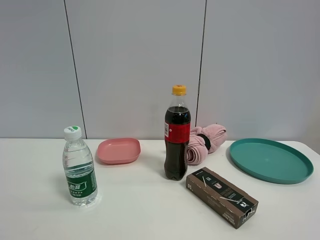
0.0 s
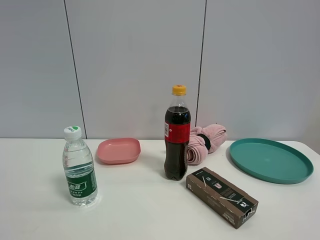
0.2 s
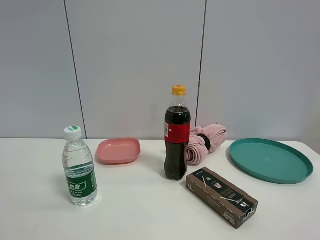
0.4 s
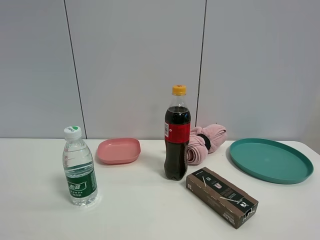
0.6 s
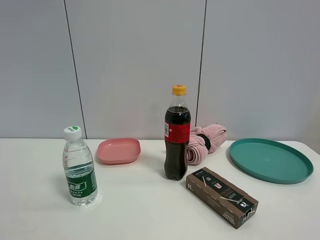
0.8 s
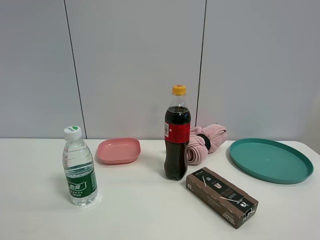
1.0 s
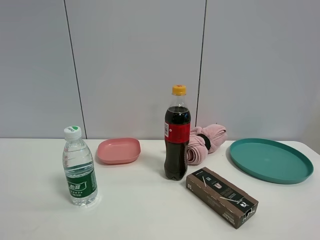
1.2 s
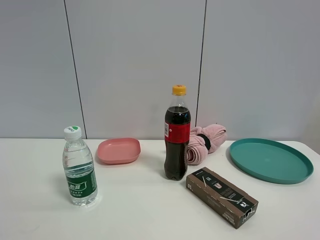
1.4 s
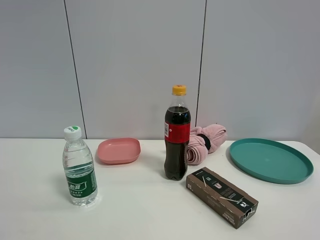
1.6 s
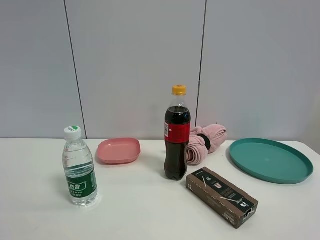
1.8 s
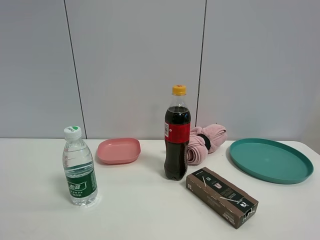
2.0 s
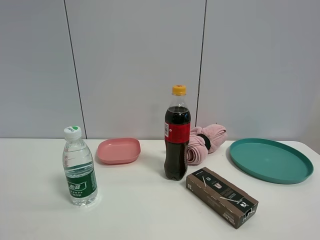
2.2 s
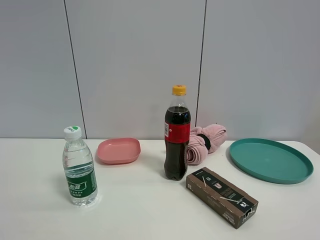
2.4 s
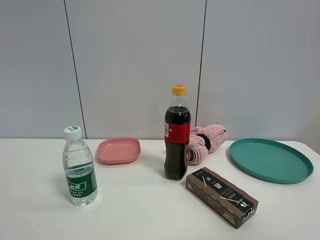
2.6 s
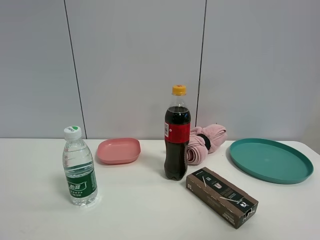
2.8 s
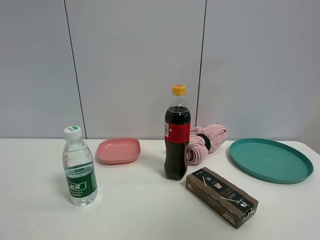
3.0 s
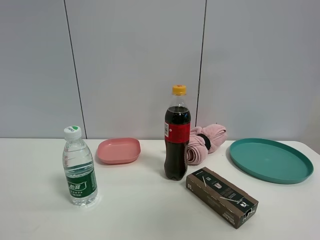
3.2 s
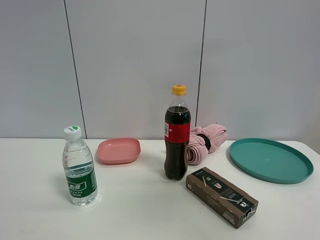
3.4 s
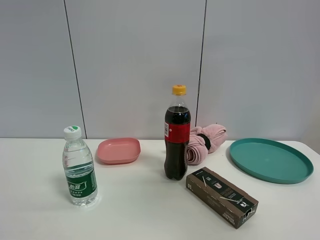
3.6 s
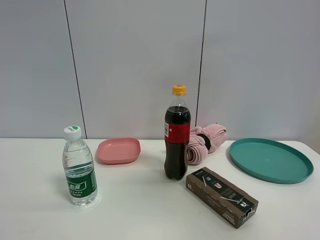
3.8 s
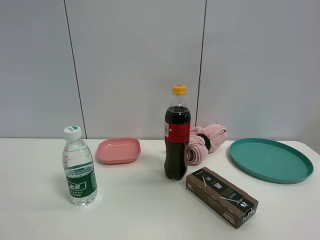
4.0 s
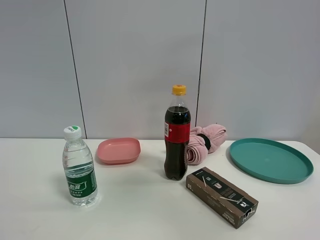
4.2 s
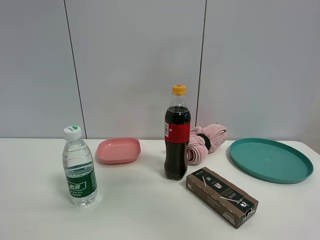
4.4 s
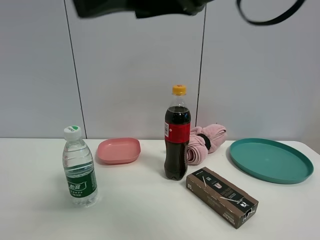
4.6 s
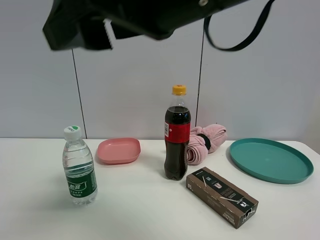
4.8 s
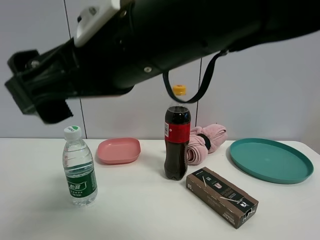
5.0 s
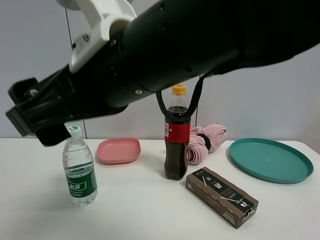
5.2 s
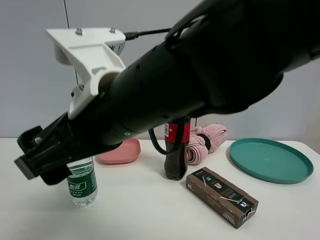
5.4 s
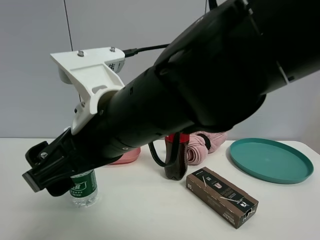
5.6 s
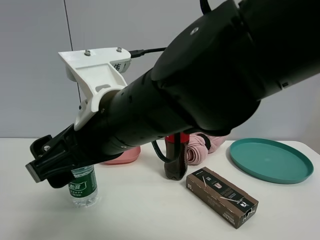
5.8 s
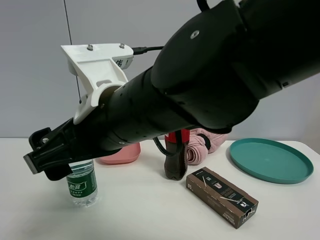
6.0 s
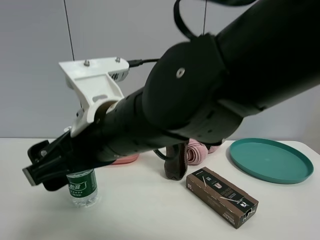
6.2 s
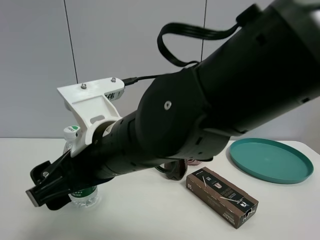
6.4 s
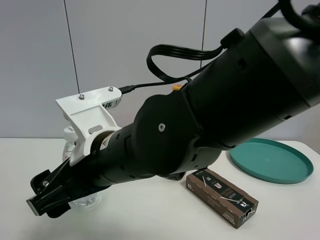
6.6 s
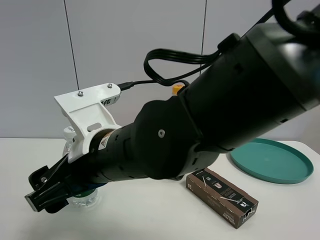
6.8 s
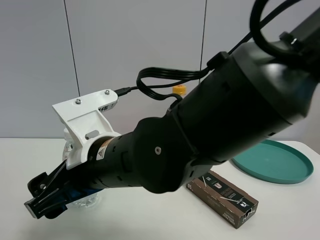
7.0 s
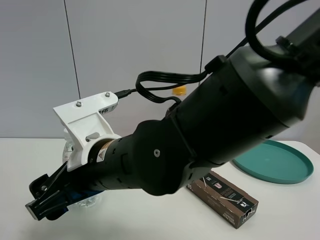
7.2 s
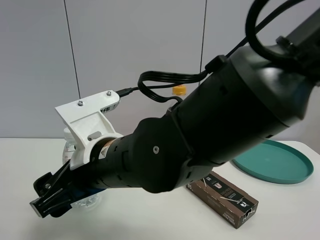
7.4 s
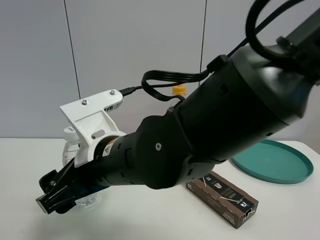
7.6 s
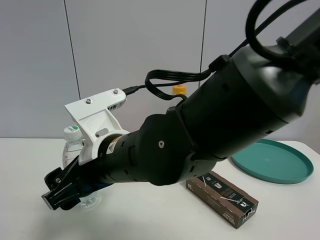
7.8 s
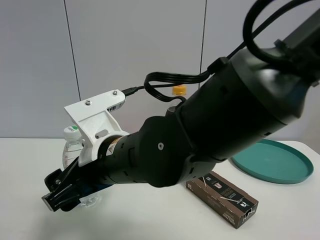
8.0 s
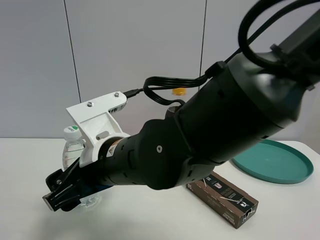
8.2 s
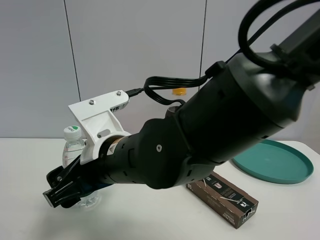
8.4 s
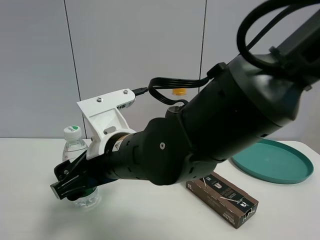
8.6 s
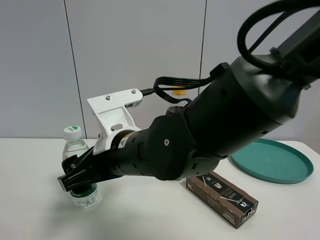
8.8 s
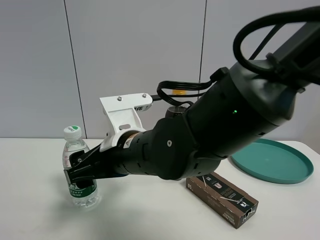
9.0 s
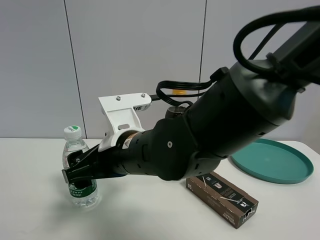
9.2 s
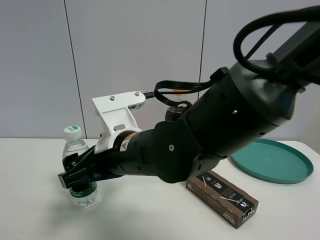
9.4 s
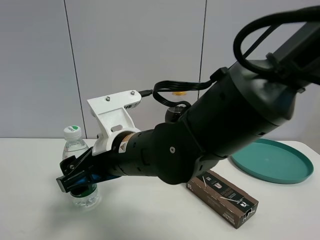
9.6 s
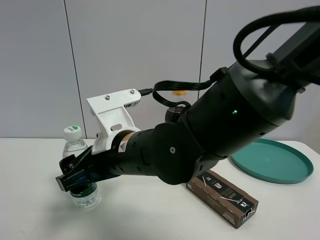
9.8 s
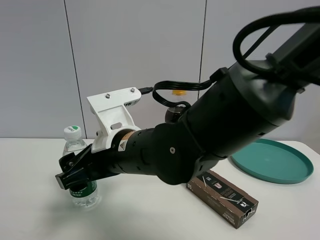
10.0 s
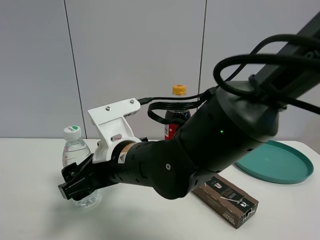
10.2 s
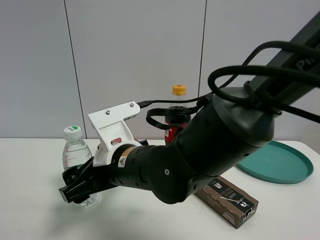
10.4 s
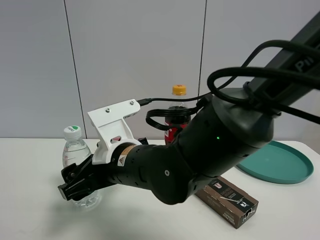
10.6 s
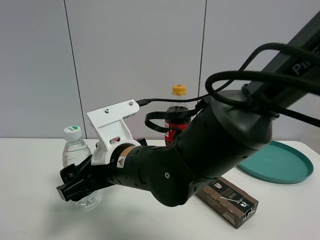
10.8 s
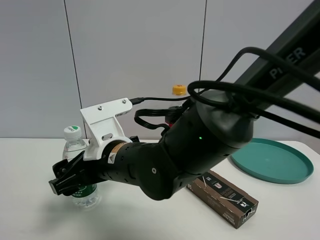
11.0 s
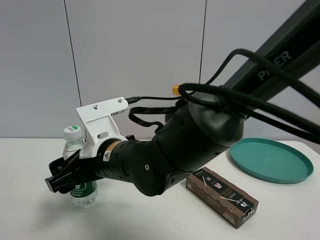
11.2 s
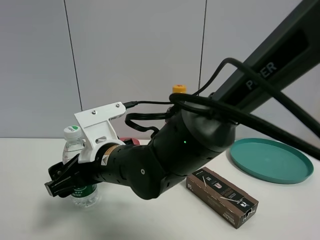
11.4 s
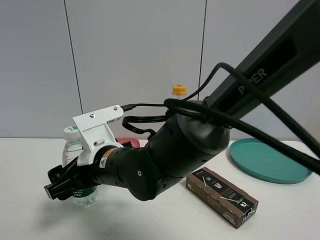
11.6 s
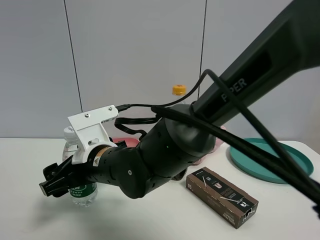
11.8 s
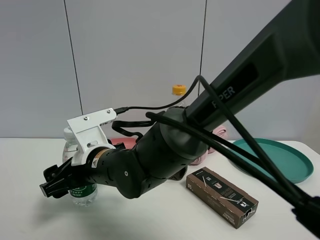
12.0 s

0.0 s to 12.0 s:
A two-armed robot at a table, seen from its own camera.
Task of the whole recording: the gripper move the object.
0.0 to 1.6 s: The two grippers keep their place.
1.6 to 3.0 s: The right gripper travels upward and forward by some 15 cm.
3.0 to 4.4 s: The right gripper goes about 15 cm forward and to the left.
4.4 to 6.0 s: The right gripper shifts about 25 cm downward and to the left.
6.0 to 7.6 s: The right gripper travels downward by roughly 5 cm.
9.0 to 10.4 s: There are only small adjustments of the grippers.
10.4 to 12.0 s: The right gripper changes place by approximately 5 cm.

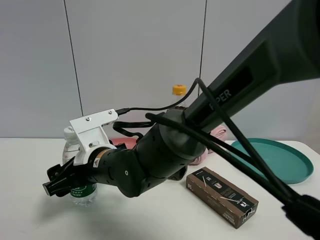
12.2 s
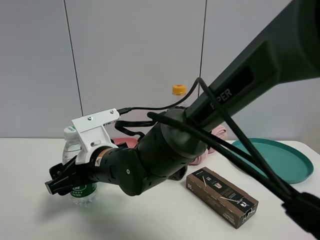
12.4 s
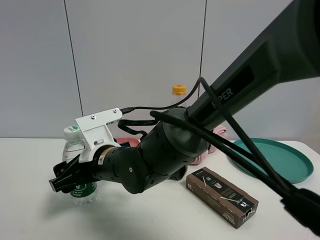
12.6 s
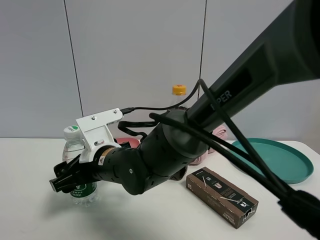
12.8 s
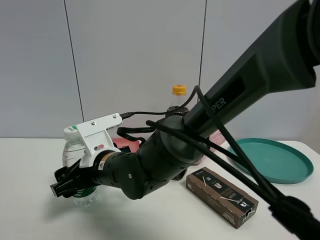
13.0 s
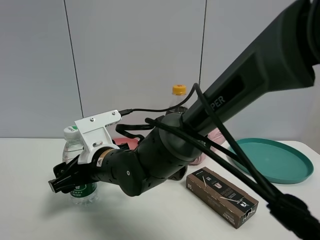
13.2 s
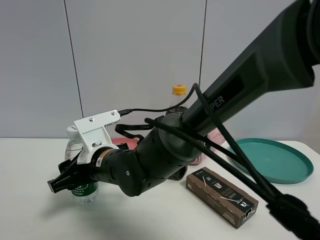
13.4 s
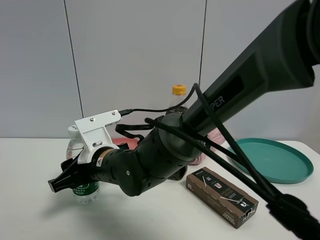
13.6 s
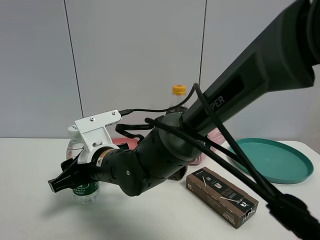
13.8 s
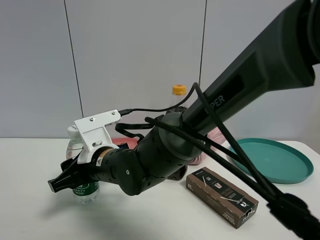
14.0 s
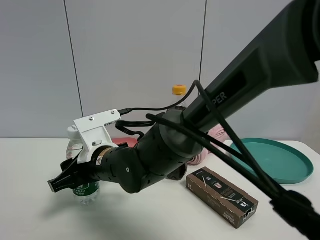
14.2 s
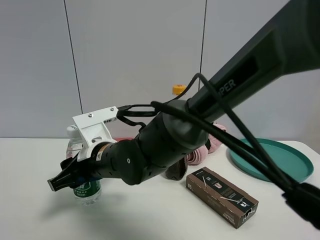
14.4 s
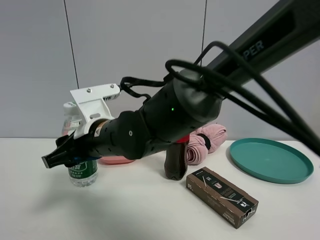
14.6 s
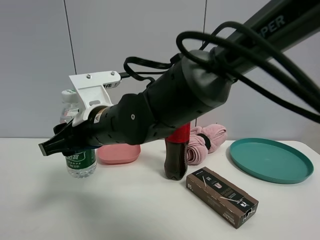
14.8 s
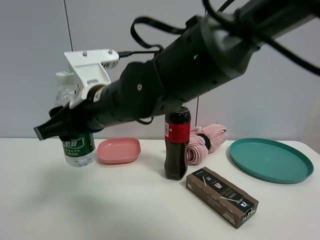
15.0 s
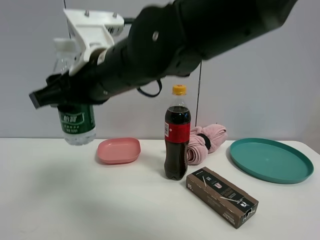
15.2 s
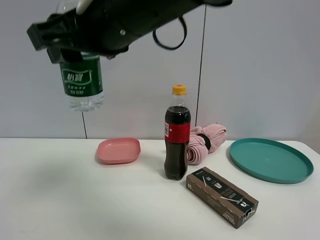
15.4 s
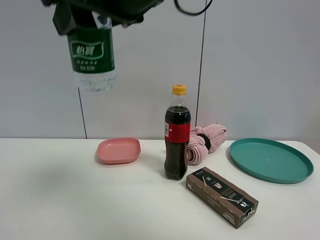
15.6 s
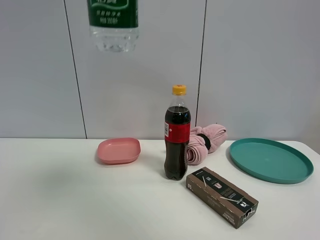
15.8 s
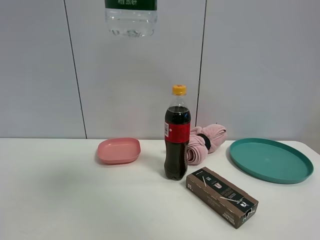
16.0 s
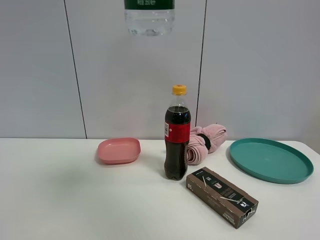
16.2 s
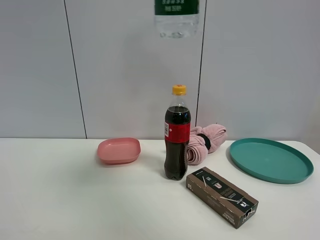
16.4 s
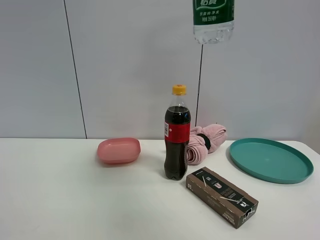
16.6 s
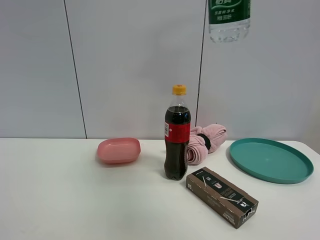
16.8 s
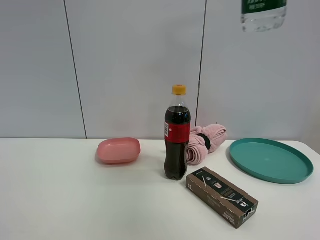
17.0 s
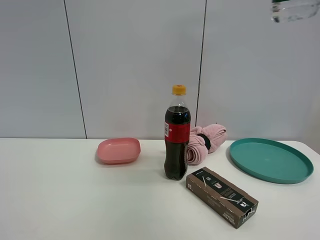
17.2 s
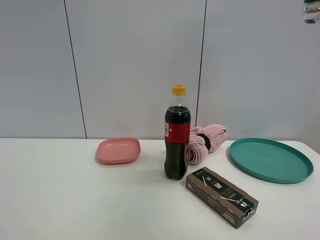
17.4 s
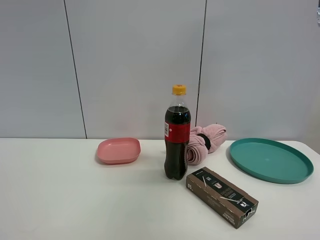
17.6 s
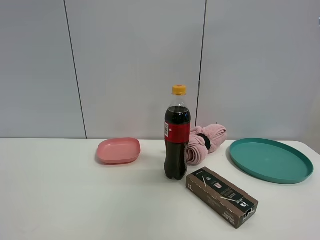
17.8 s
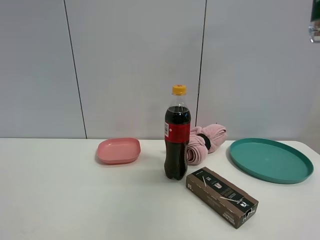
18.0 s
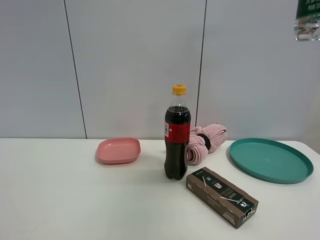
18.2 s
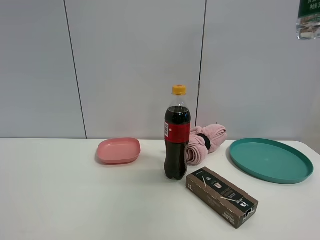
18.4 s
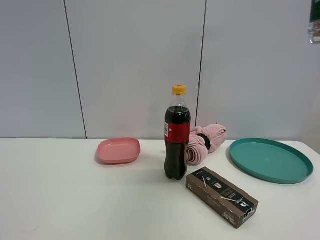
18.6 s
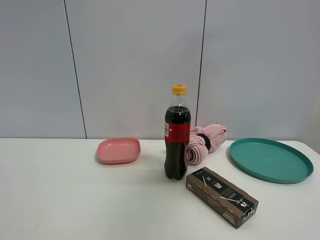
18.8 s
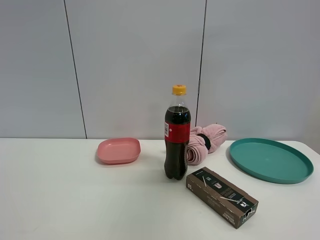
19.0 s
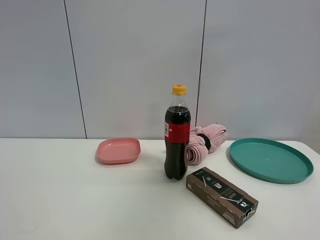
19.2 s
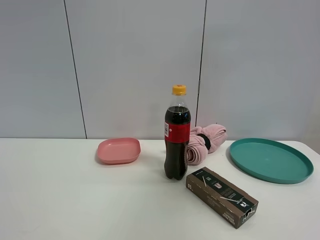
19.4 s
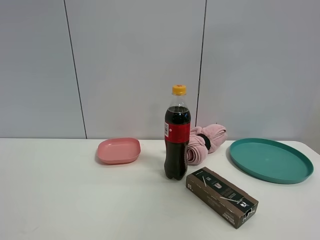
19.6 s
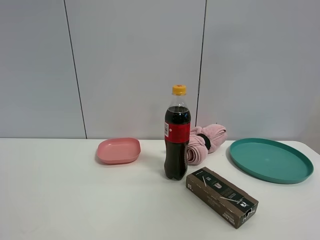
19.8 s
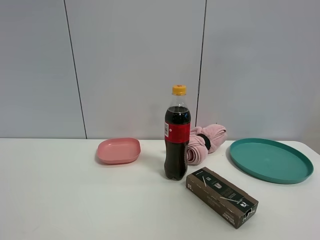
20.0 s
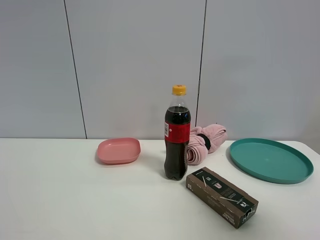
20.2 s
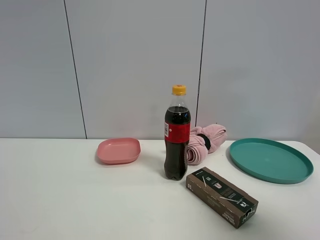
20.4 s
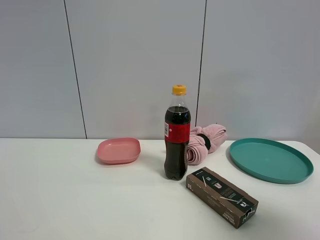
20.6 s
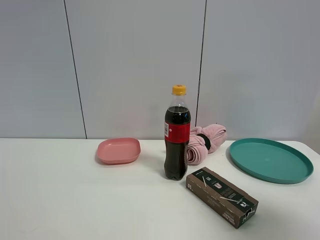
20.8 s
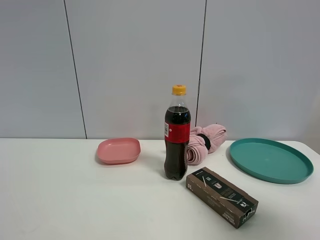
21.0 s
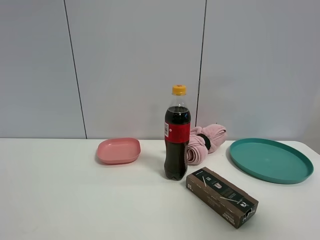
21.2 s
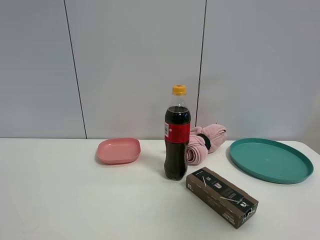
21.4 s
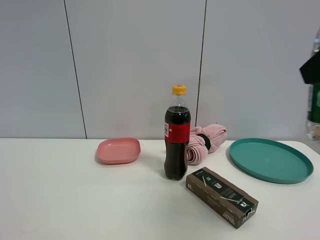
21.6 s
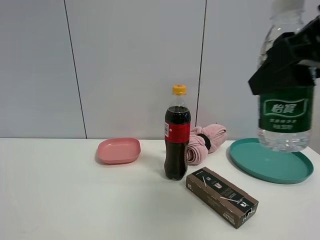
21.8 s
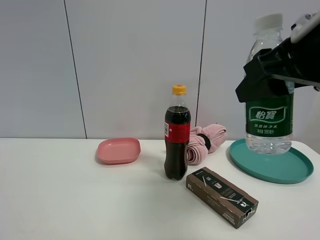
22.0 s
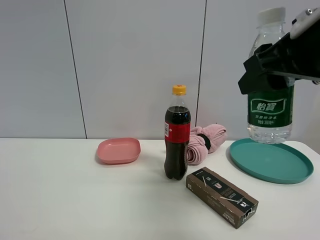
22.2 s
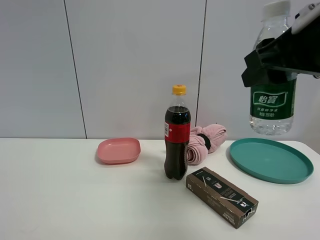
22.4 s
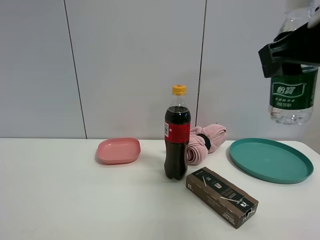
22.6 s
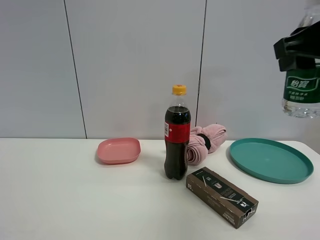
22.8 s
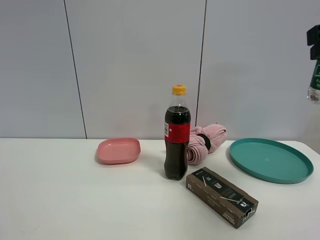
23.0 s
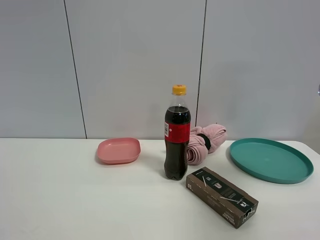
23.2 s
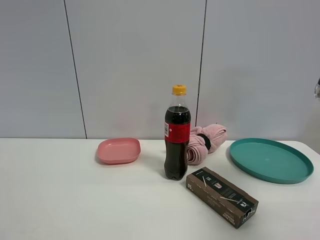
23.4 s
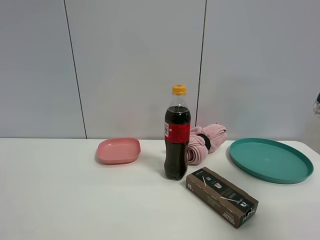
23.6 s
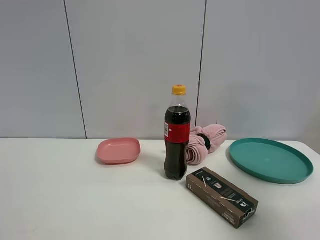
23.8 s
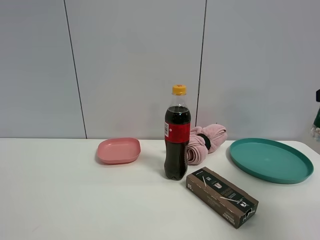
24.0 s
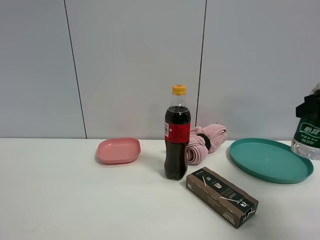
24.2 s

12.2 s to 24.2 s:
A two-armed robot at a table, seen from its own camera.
Task of the whole recording: the gripper move the object.
12.2 to 13.8 s: The right gripper closes up.
13.8 to 15.2 s: The right gripper moves upward, about 15 cm.
15.2 to 16.6 s: The right gripper is displaced upward and to the right by some 25 cm.
16.6 to 18.2 s: The right gripper heads to the right, covering some 10 cm.
18.2 to 19.8 s: The right gripper travels to the right and backward by roughly 10 cm.
19.8 to 21.2 s: The right gripper shifts approximately 10 cm downward.
21.2 to 22.6 s: The right gripper travels forward and to the left by approximately 15 cm.
22.6 to 24.2 s: The right gripper heads to the right, downward and forward, covering approximately 15 cm.
